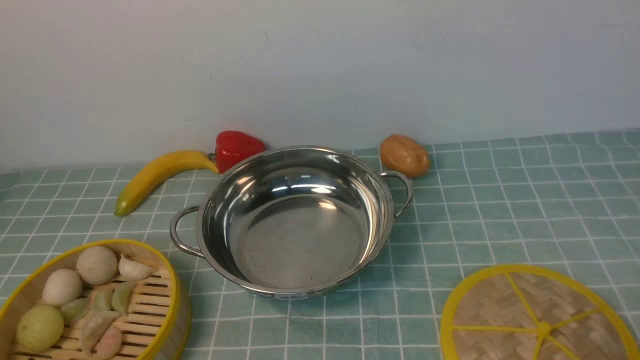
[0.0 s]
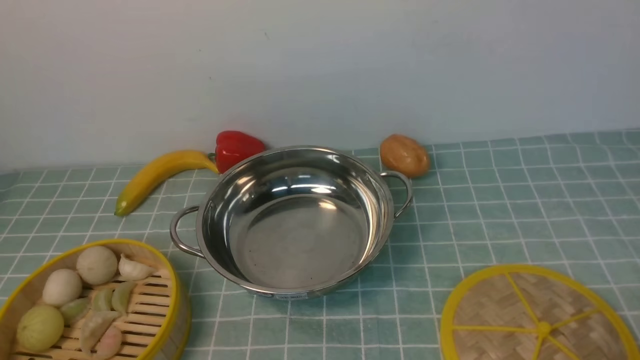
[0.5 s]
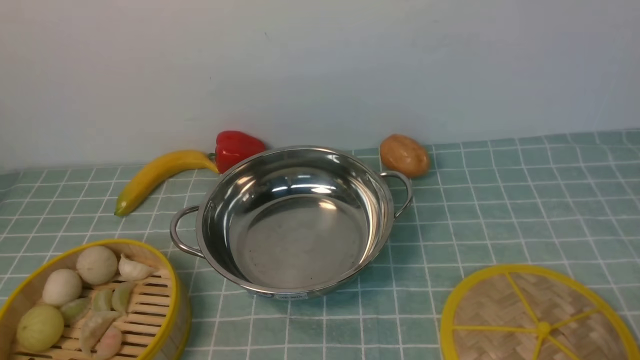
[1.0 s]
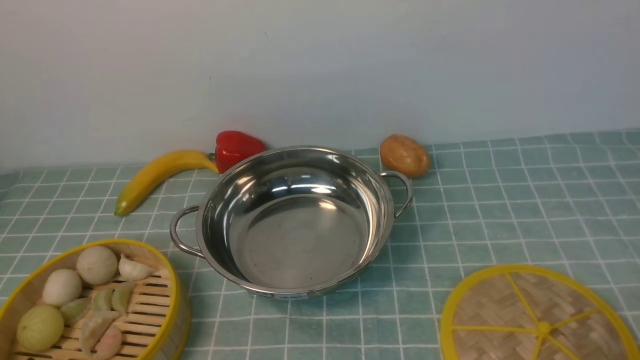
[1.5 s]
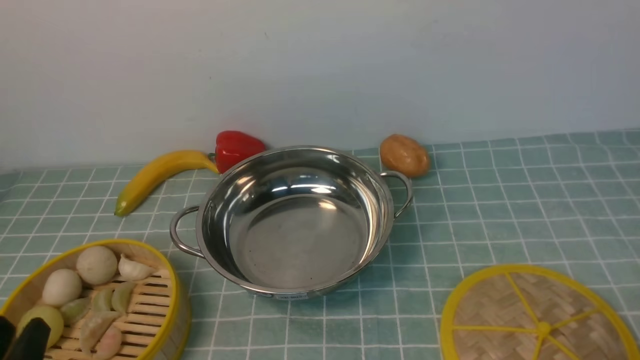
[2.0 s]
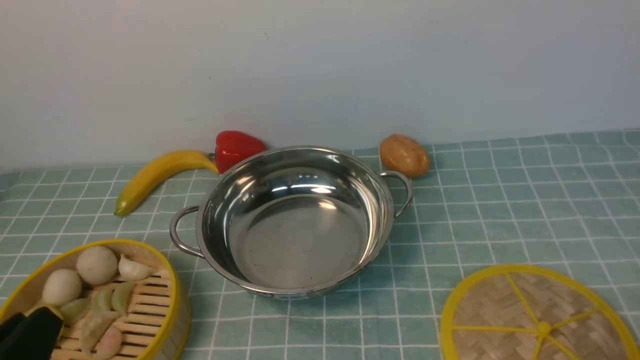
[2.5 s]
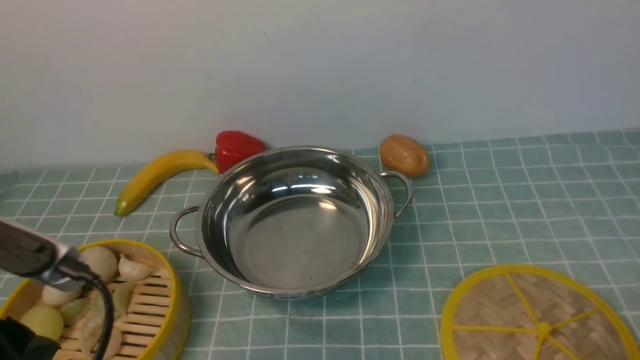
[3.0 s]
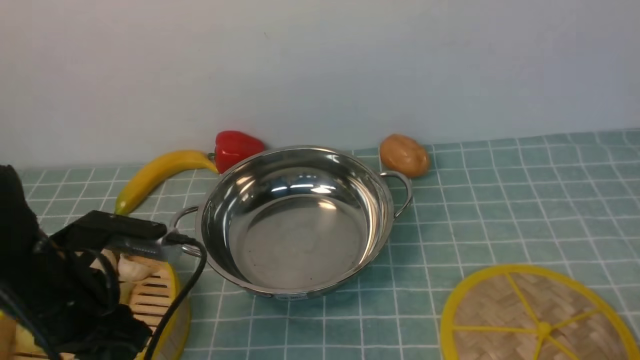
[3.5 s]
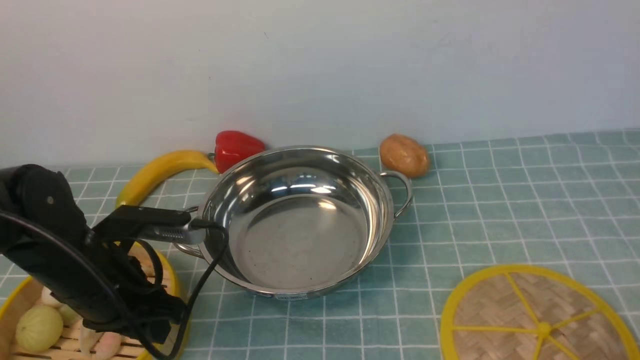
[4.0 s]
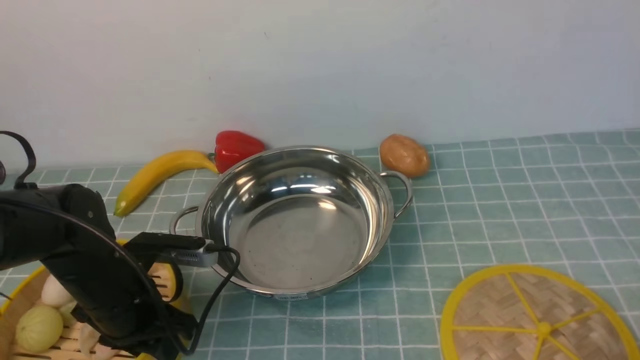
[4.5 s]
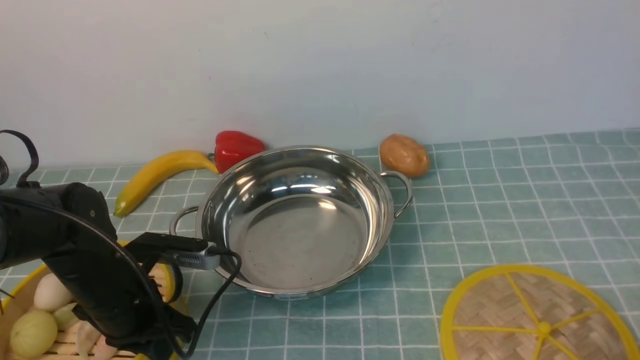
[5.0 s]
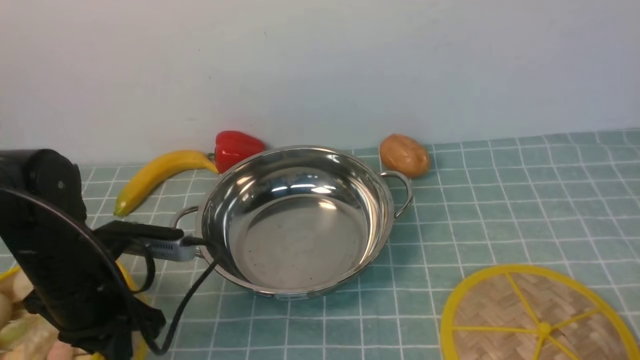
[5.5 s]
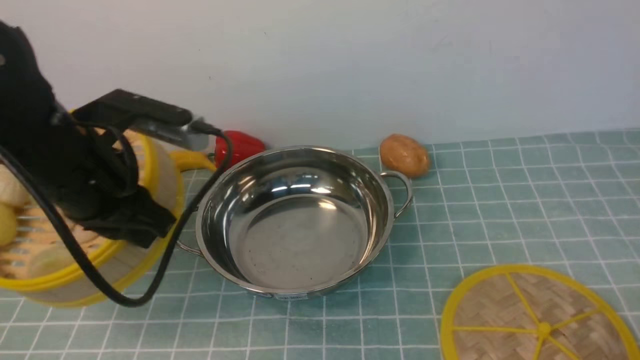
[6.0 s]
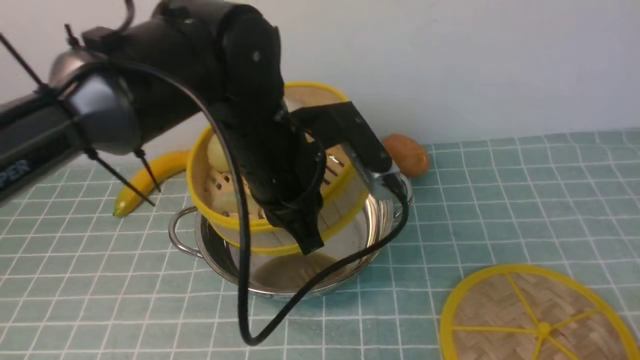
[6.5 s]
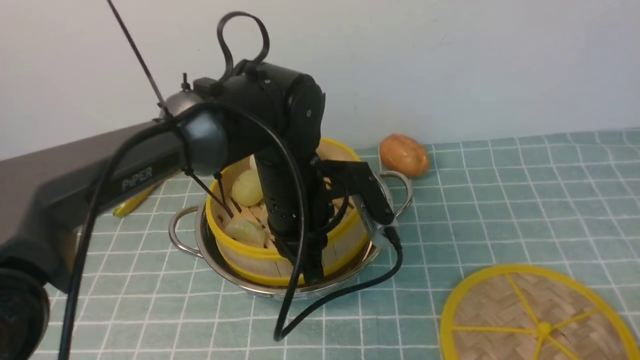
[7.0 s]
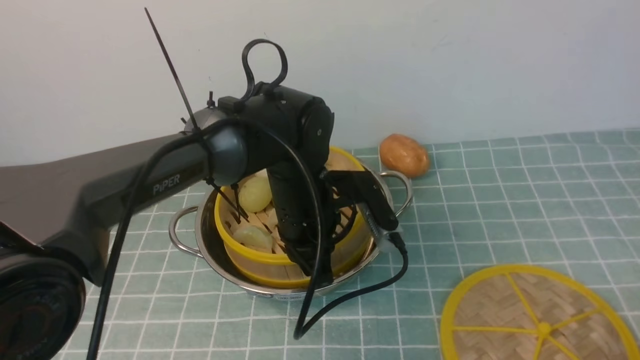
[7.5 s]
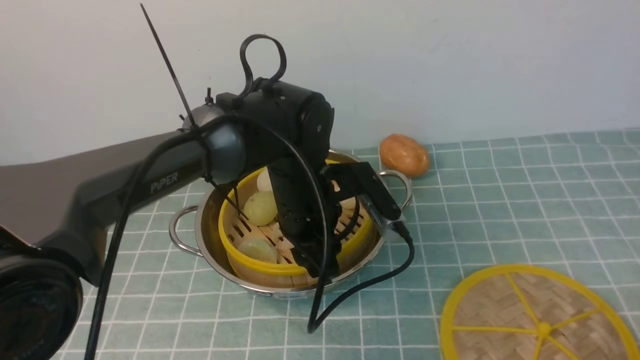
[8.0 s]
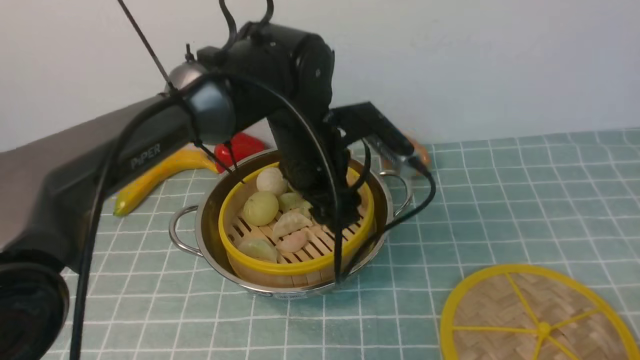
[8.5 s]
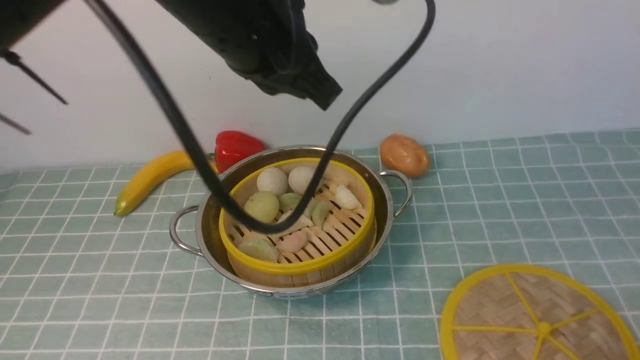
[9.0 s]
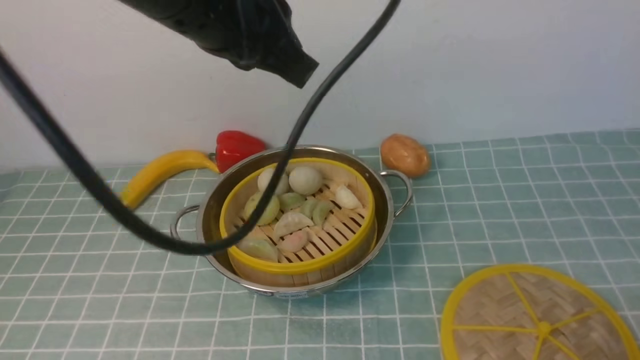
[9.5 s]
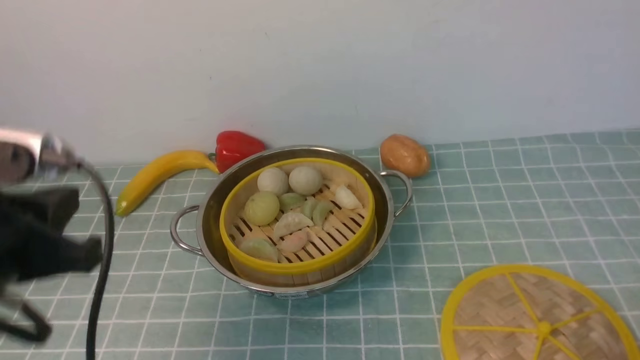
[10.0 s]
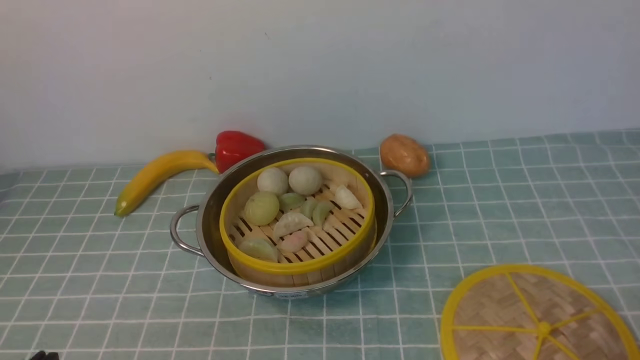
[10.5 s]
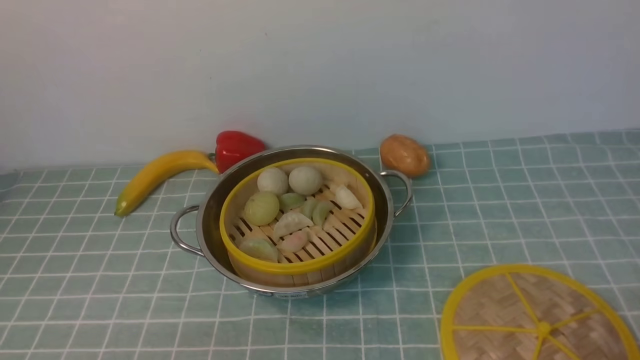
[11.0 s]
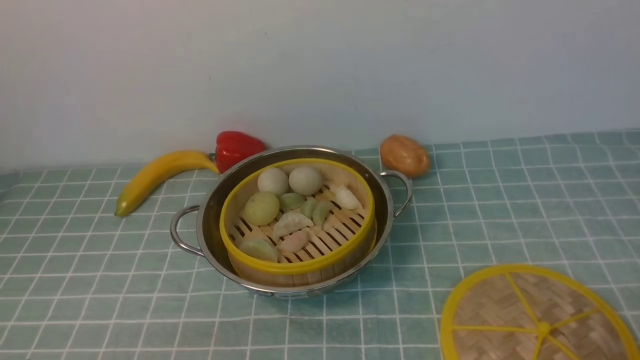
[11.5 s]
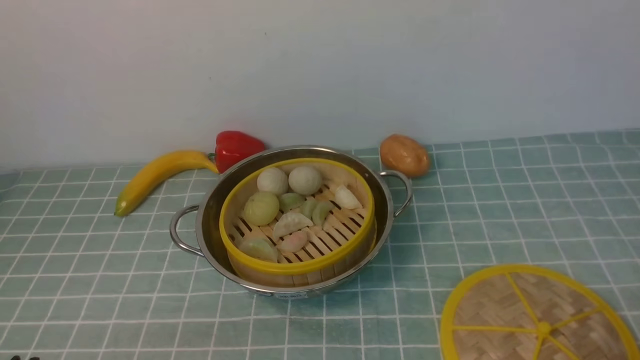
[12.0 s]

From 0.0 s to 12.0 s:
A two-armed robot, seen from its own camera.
Task of the whole recording: place the steamer in the pot on the blue tablecloth, and put the lid on the steamer.
Step, from 0.0 s to 5.5 s: use the left arm to lift the steamer closest to it.
Step, from 6.0 s to 8.0 s: use the left arm to put the steamer into the iron steamer pot in the middle.
From 2.0 s to 4.0 s: The left gripper travels forward by approximately 20 cm.
From 4.0 s to 6.0 s: The left gripper travels upward by roughly 10 cm, and closes.
From 6.0 s to 8.0 s: The left gripper is displaced to the right, downward and forward by some 20 cm, and opens.
From 8.0 s to 10.0 s: The left gripper heads to the left, backward and upward, covering roughly 30 cm, and closes.
From 10.0 s to 12.0 s: The left gripper heads downward and backward, covering some 15 cm.

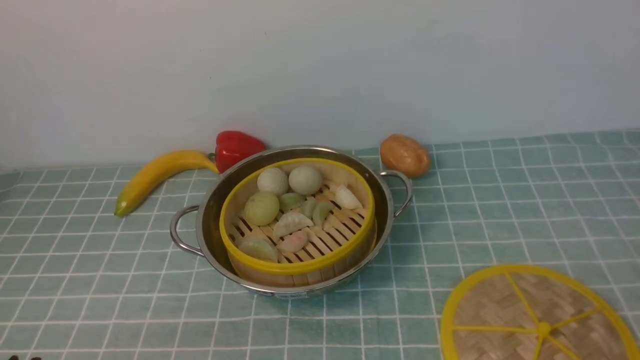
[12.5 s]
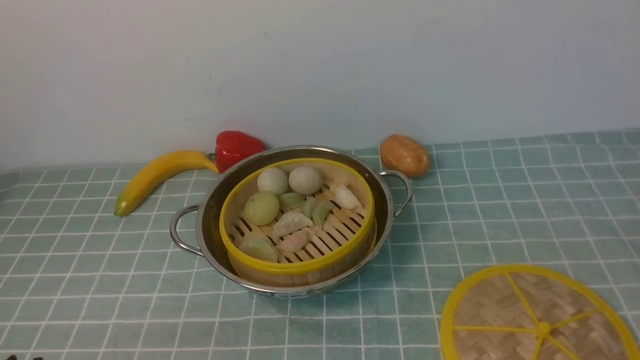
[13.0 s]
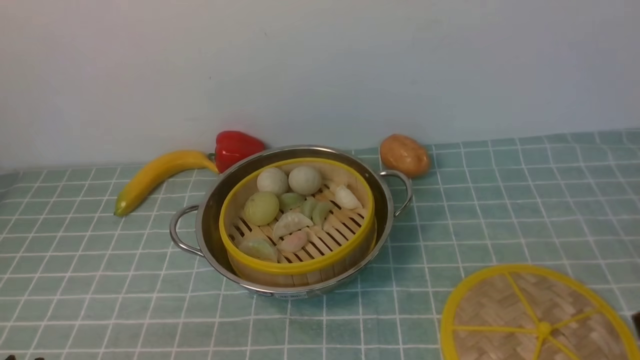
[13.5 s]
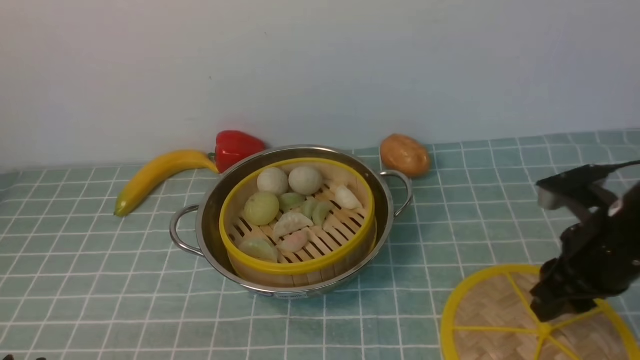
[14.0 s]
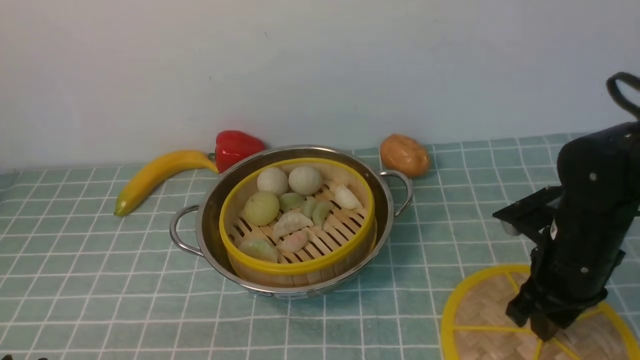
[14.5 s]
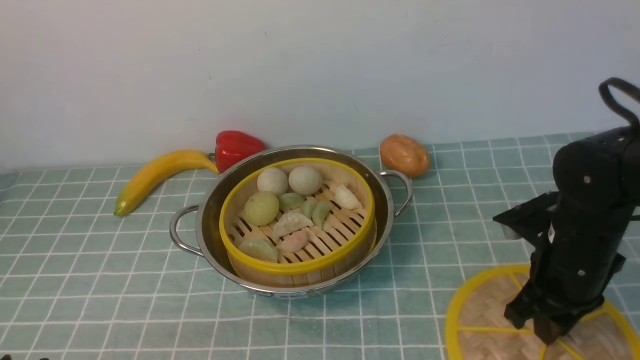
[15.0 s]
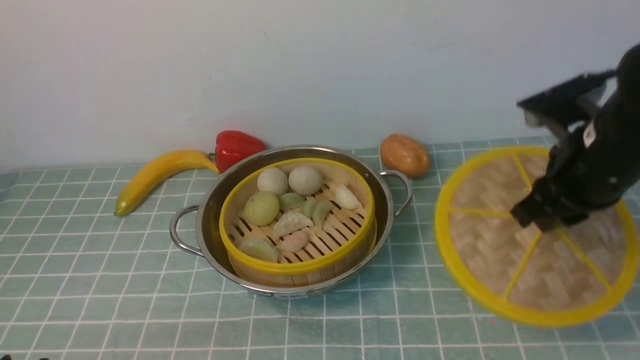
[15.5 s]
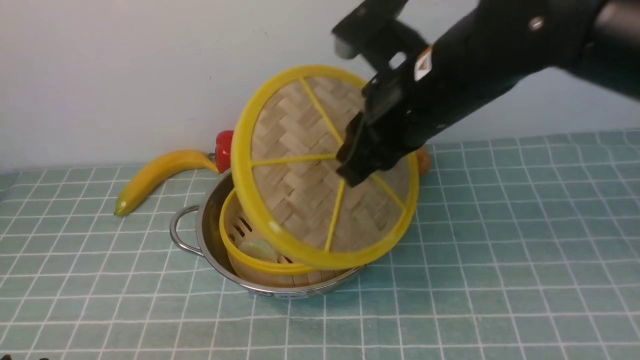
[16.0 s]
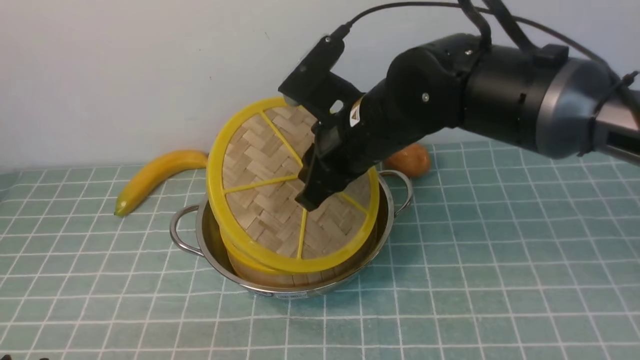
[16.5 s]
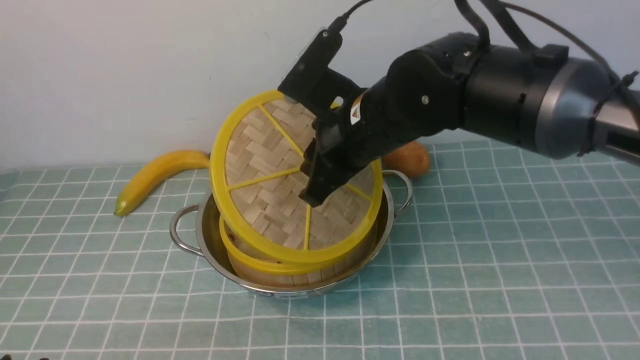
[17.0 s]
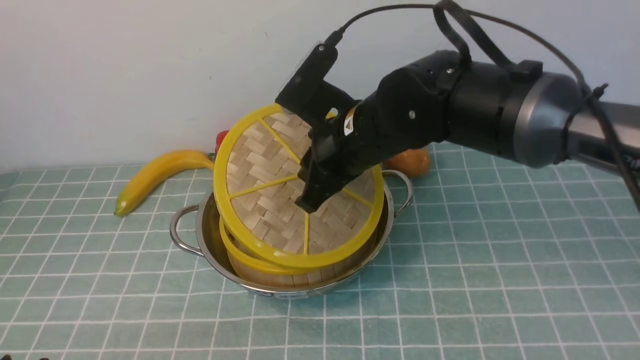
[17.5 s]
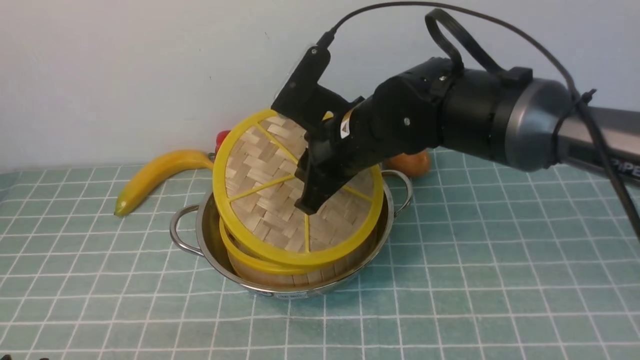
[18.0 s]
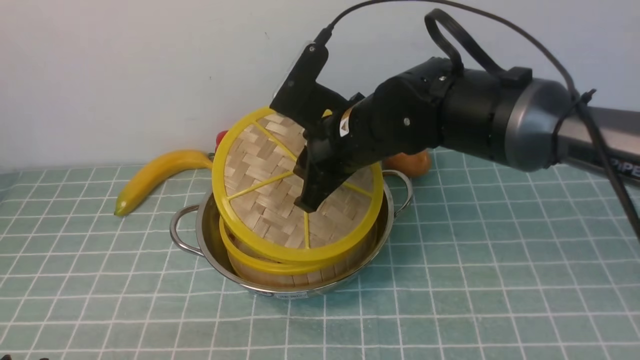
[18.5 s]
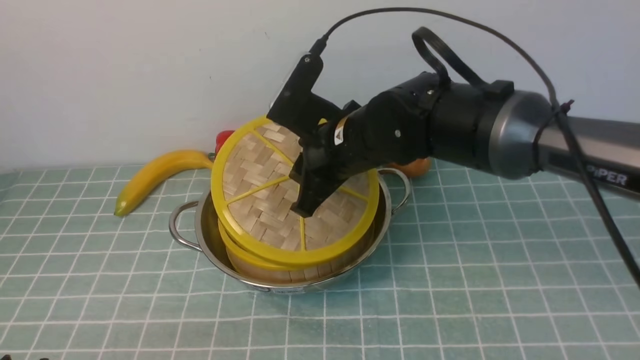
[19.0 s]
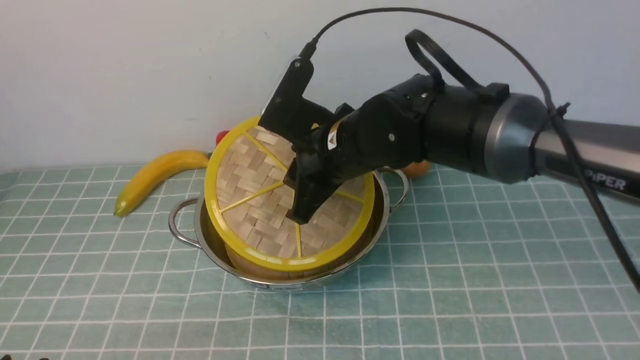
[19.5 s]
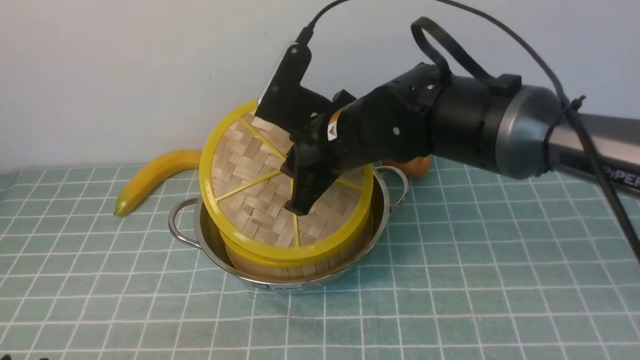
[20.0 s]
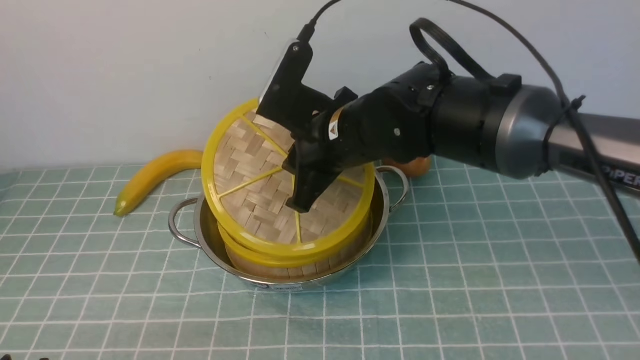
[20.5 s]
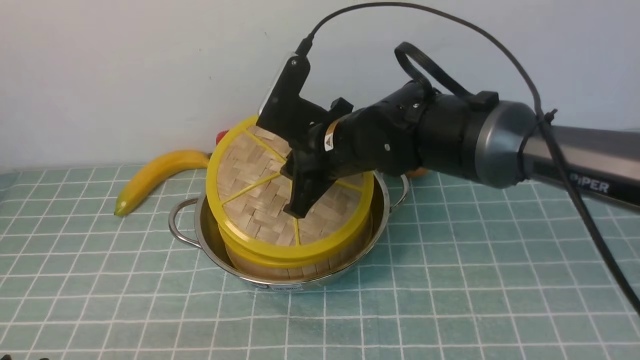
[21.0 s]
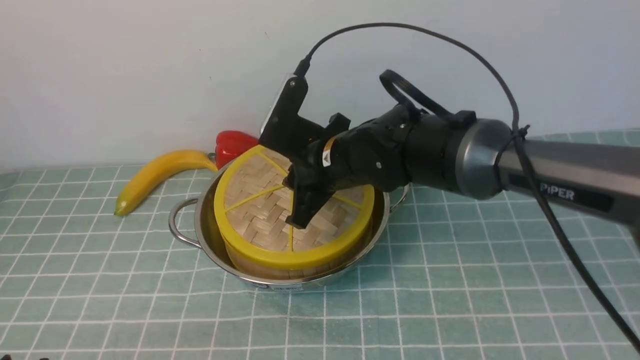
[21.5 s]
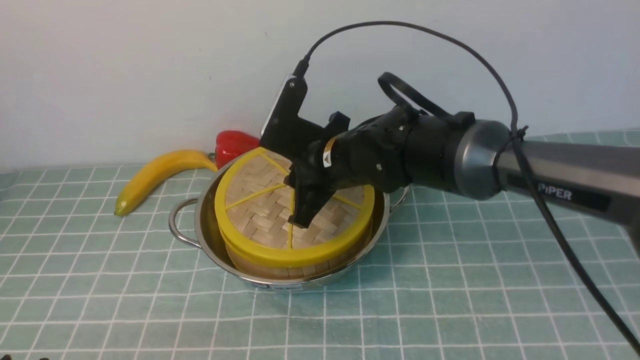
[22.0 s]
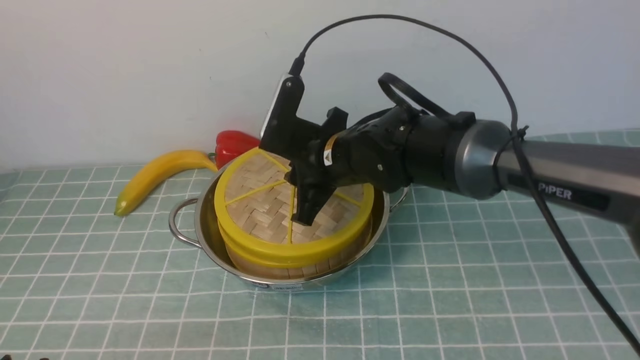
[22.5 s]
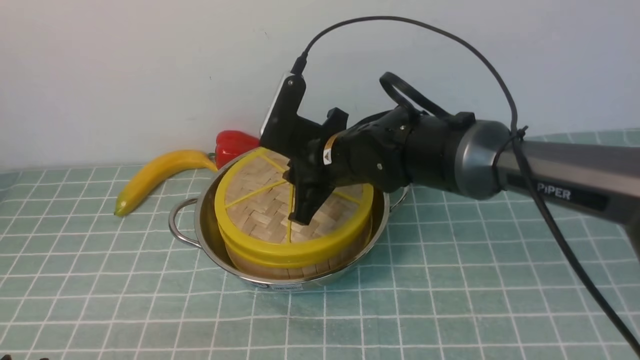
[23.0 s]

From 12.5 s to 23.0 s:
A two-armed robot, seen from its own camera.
Task of the whole recording: place the steamer in the pot on the blue tablecloth, and put the lid on the steamer.
Step, from 12.5 s to 15.5 s: use the right arm to lift the lid of the steamer.
From 12.5 s to 14.5 s: The right gripper goes roughly 25 cm forward.
From 14.5 s to 16.5 s: The right gripper shifts about 20 cm to the left and upward.
From 16.5 s to 21.0 s: The grippers move only a little.
From 21.0 s to 23.0 s: The grippers move only a little.
